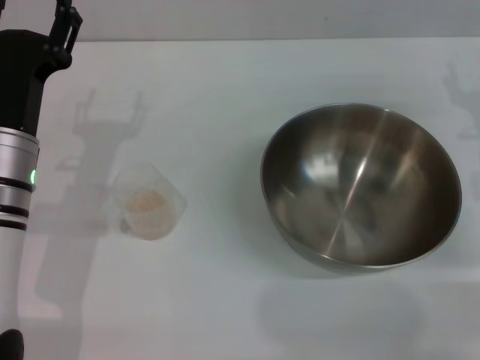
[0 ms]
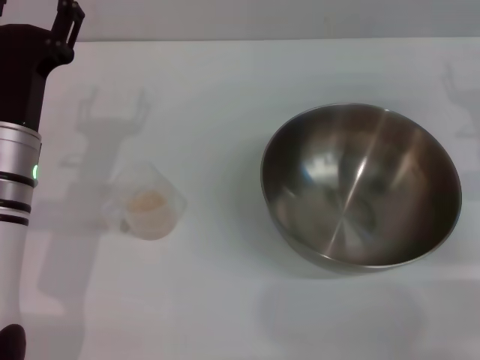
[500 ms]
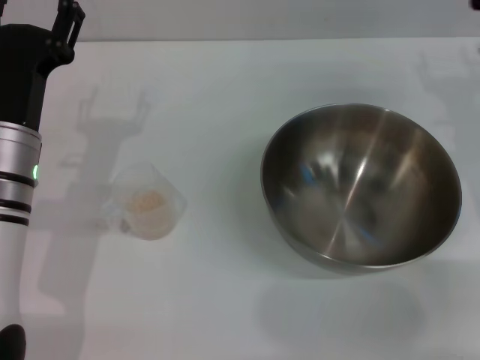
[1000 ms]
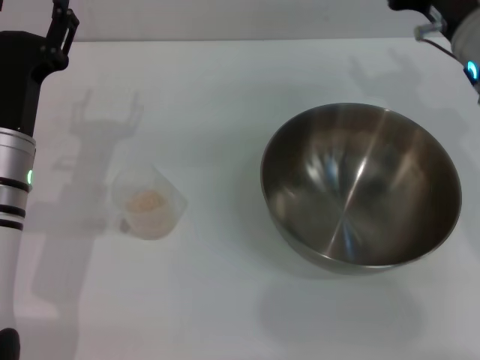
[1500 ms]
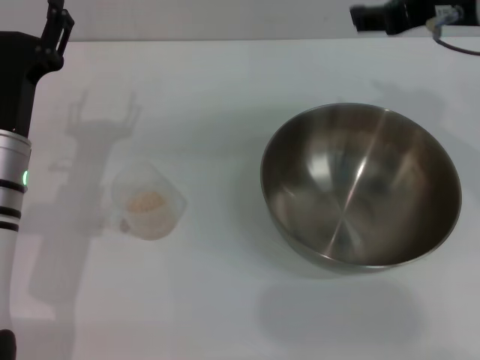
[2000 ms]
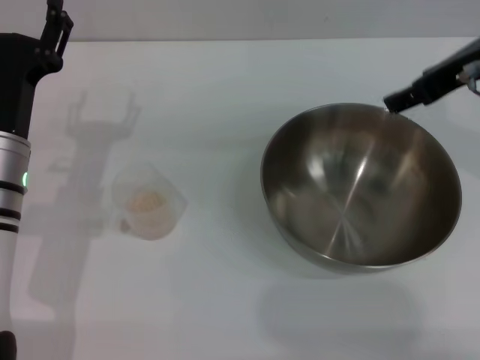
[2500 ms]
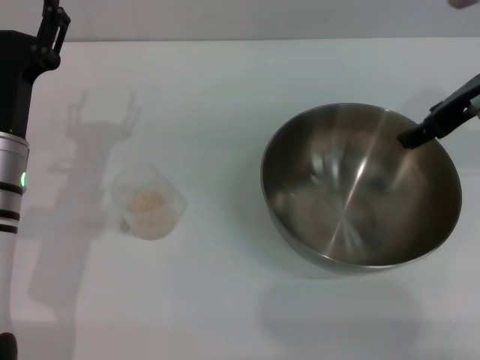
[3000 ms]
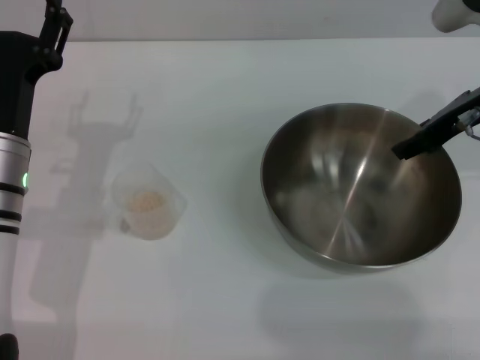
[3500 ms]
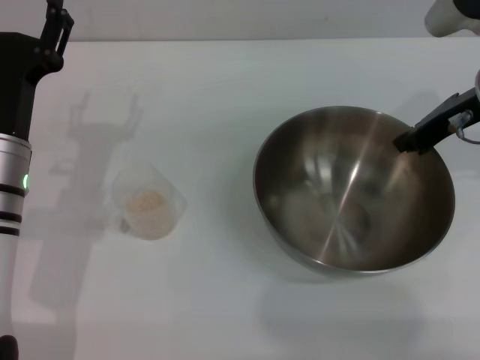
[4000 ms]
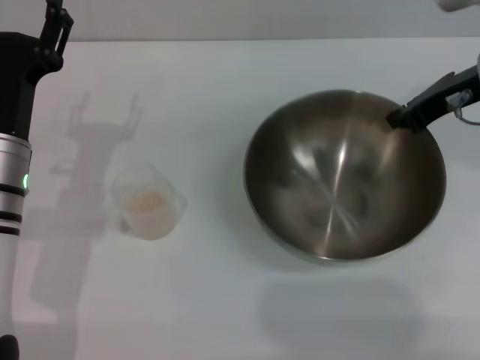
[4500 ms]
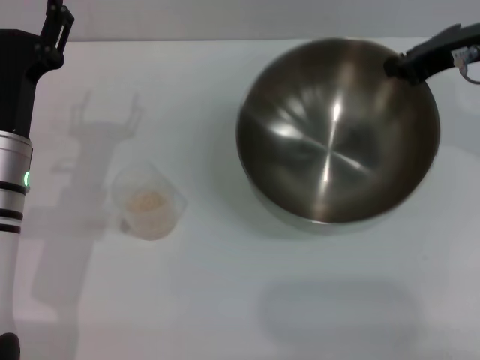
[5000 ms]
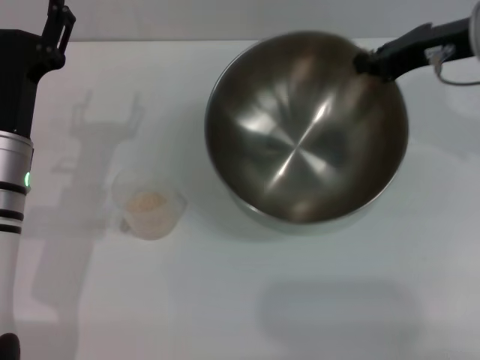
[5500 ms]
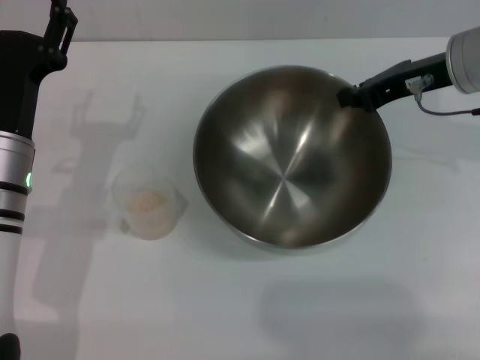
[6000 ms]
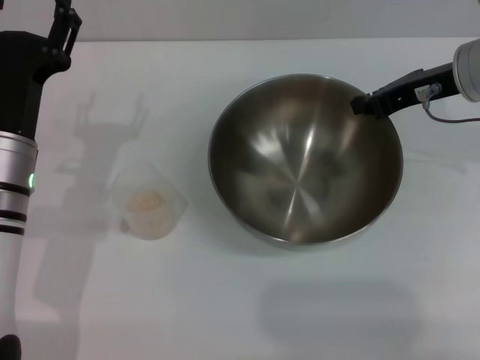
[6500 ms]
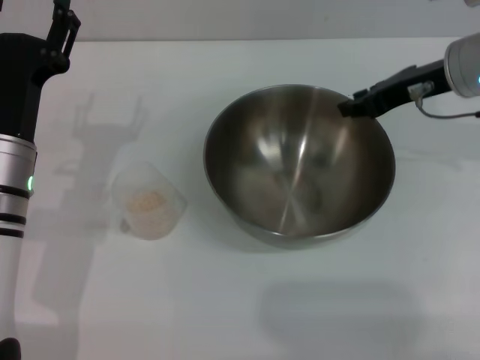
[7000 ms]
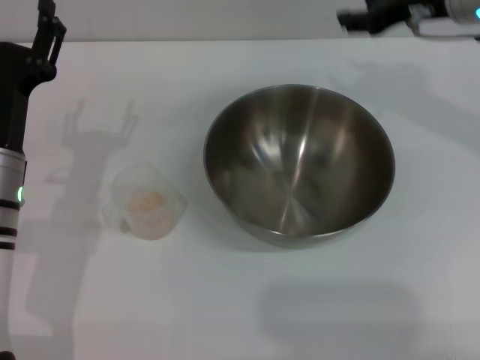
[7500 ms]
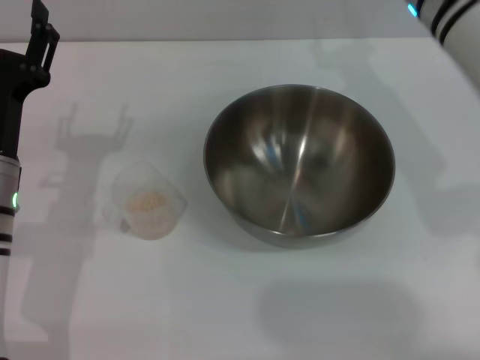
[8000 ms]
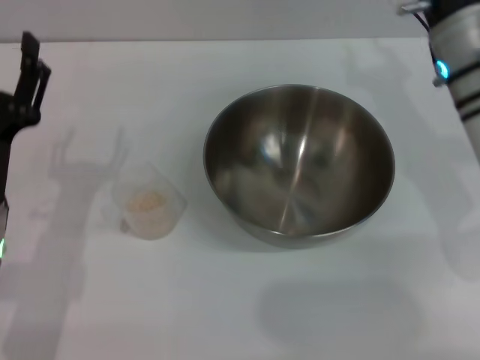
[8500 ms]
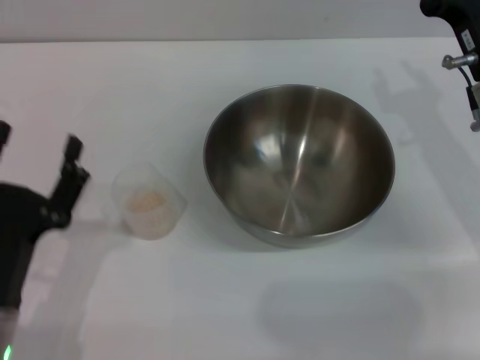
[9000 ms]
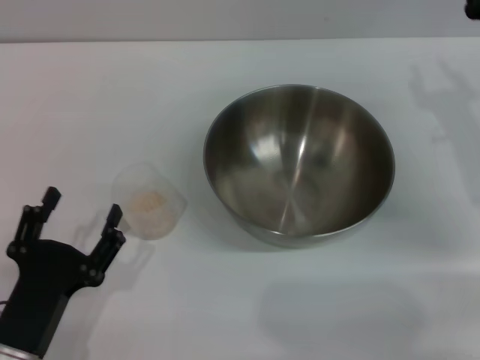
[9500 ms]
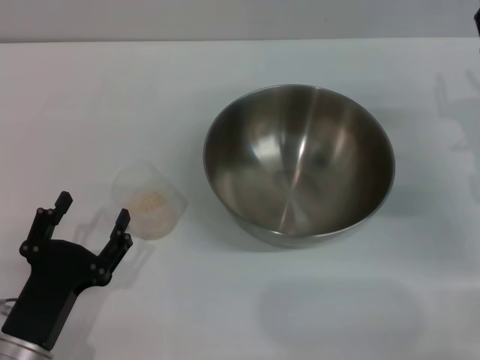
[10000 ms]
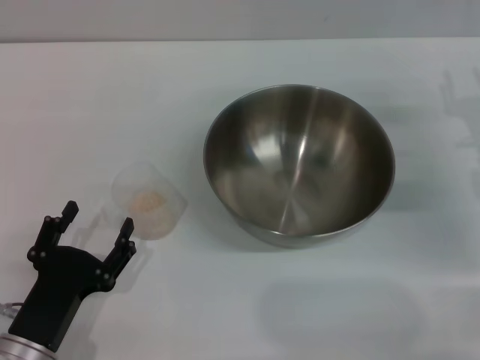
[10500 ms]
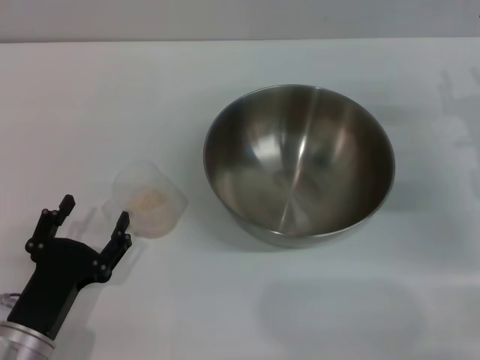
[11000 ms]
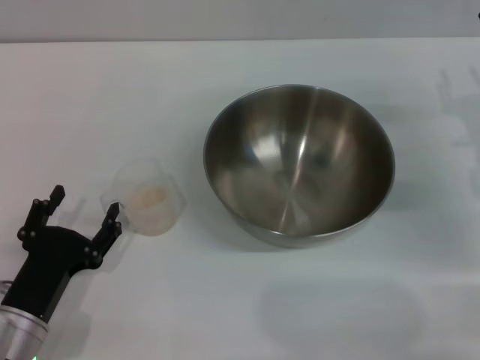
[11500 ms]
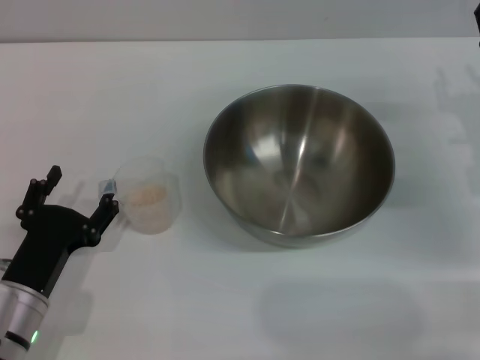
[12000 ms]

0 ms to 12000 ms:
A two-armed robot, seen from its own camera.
Task of the whole recording: Place the bowl in the middle of the table with one hand and pour the rice from the grain cup into it with the other hand.
Step, 0 ms to 5000 ms: Pick up the bowl with the right gripper.
Step, 5500 ms to 7000 ms: Place the bowl in the center of view with the right gripper.
0 ms to 2000 ms: The right gripper shifts some 20 cm upward and to the left.
2000 ms to 4000 ms: The right gripper is displaced downward by about 10 cm, and closes up.
4000 ms to 6000 ms: The right gripper closes its fingers.
6000 ms to 8000 ms: The right gripper moves to the left, some 5 cm, and opens its fingers.
8000 ms to 10000 ms: The left gripper shifts some 15 cm backward and downward. Meanwhile the right gripper moves to the right, downward and backward, roughly 20 cm.
10000 ms to 12000 ms: The left gripper moves forward, roughly 5 cm.

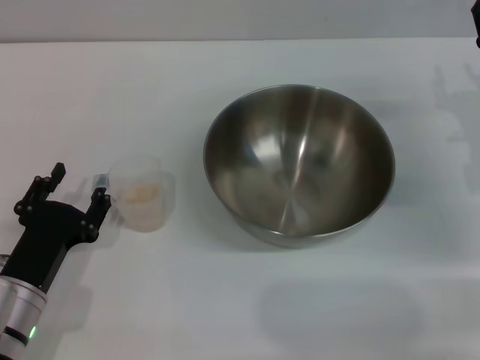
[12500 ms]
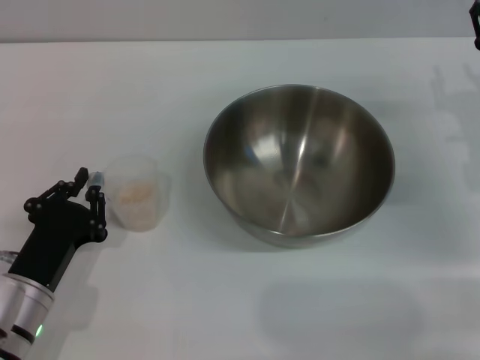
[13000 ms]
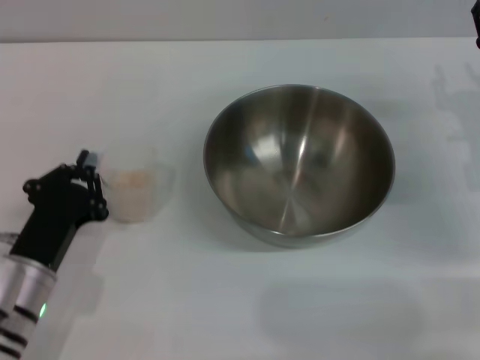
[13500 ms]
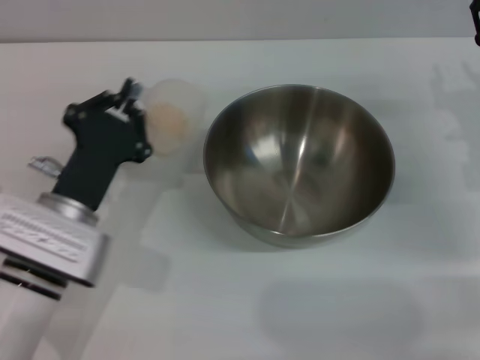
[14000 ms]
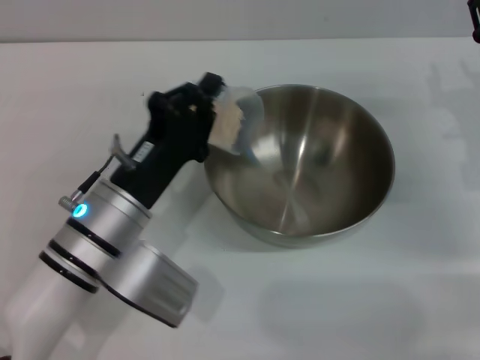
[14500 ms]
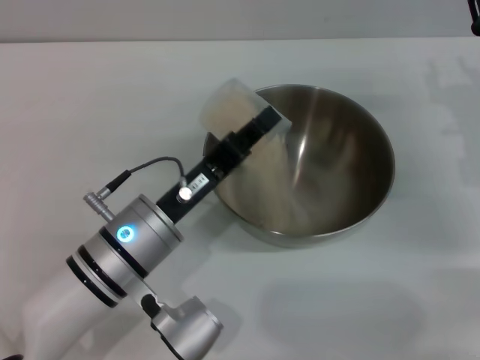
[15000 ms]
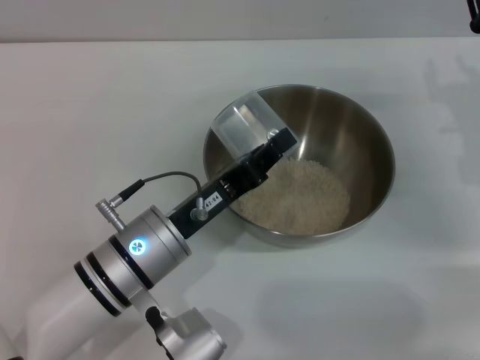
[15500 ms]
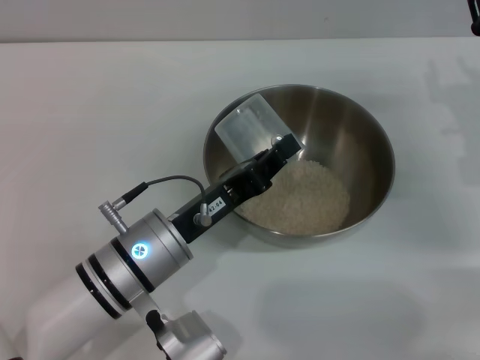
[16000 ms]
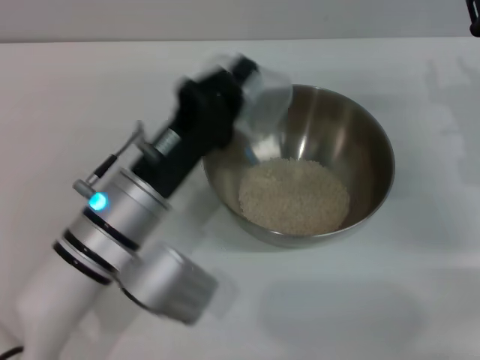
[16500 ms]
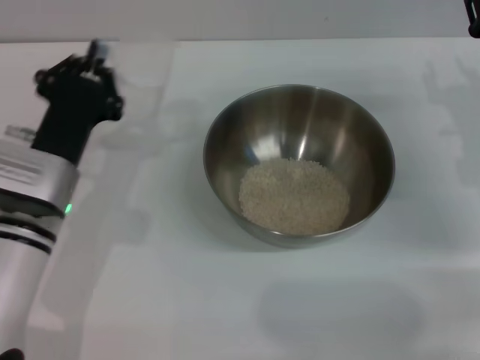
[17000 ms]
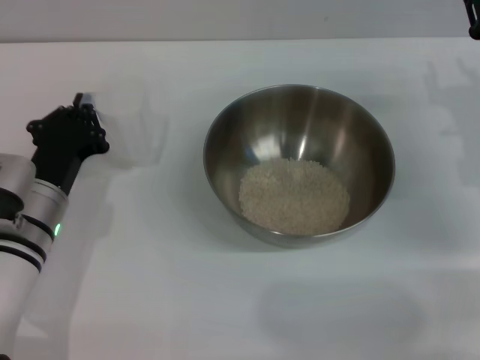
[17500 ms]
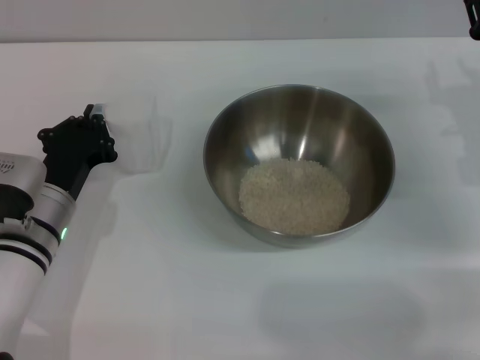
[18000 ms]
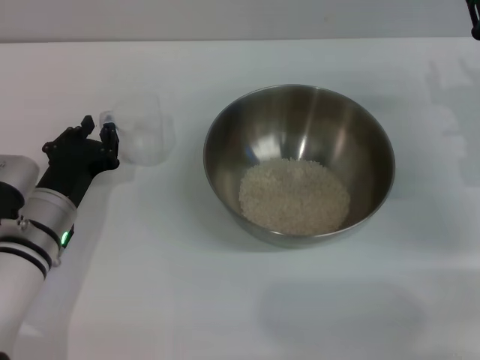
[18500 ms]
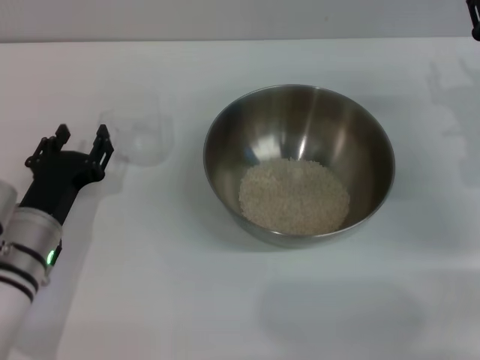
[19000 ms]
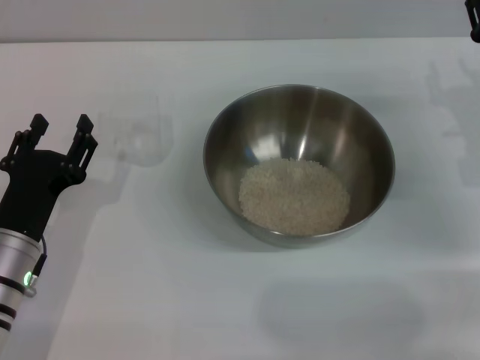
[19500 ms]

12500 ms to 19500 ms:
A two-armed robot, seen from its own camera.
Task of the whole recording: Place the bowl in the middle of the table with one hand and pour the rice from the grain cup into it with the other hand.
Step, 14000 ms to 15500 ms: Pour the rice from the cup into the bowl with the left gripper.
Step, 16000 ms to 19000 ms: Place the cup on the table with the left gripper.
12500 ms to 14500 ms: The left gripper is displaced to the right, upward and forward by about 15 cm, and closes its fingers.
16000 ms to 17500 ms: The left gripper moves to the left, approximately 10 cm.
17500 ms to 19500 ms: The left gripper shifts approximately 5 cm backward, and opens.

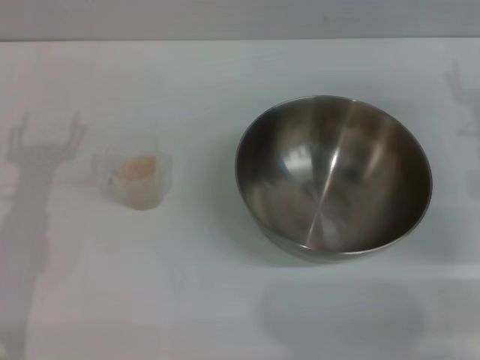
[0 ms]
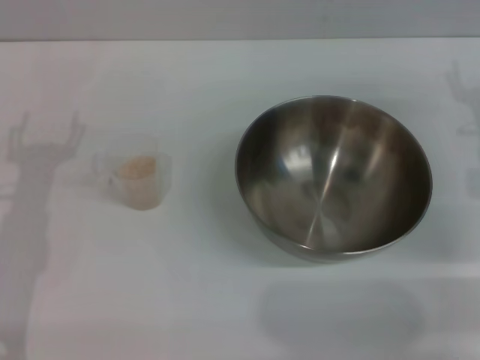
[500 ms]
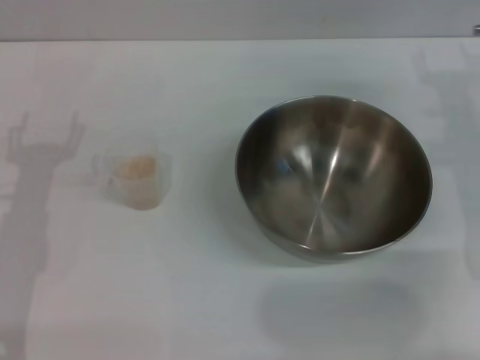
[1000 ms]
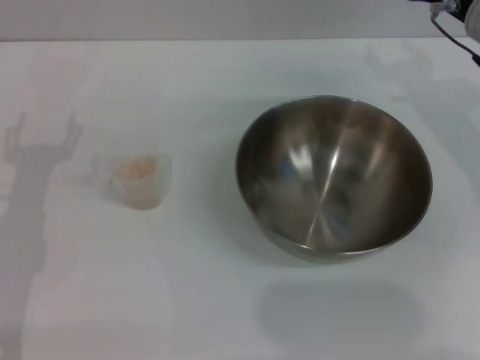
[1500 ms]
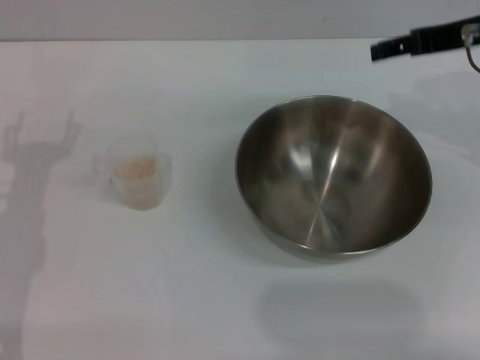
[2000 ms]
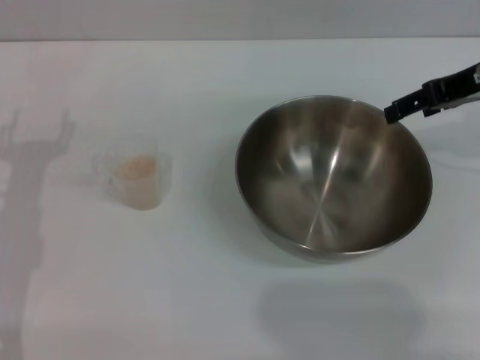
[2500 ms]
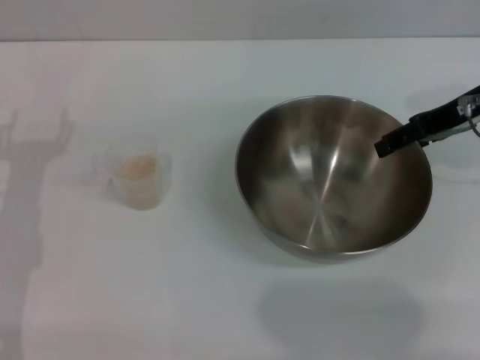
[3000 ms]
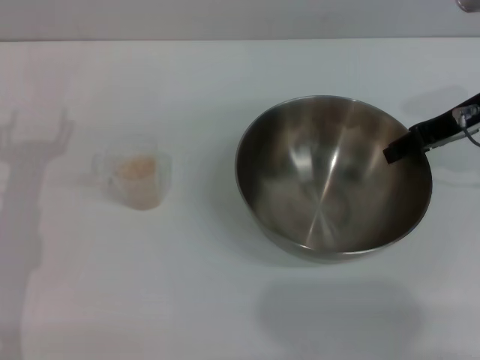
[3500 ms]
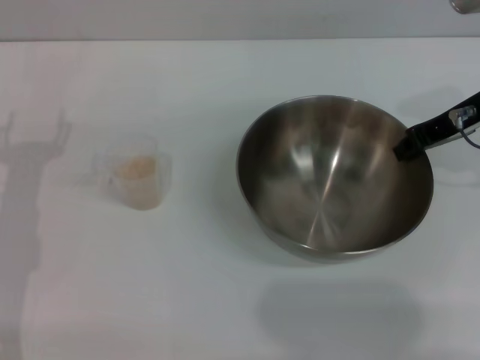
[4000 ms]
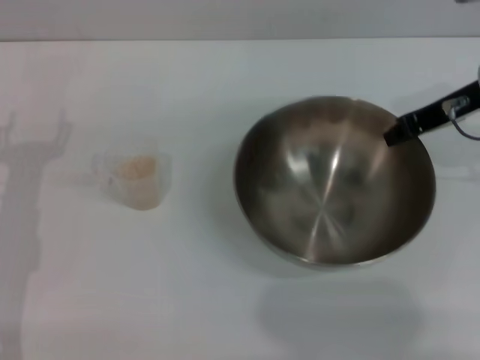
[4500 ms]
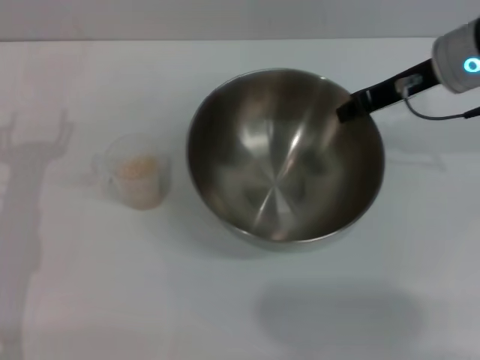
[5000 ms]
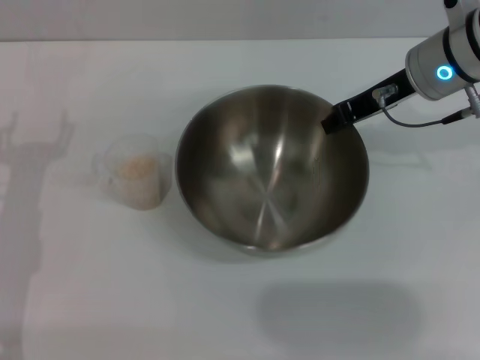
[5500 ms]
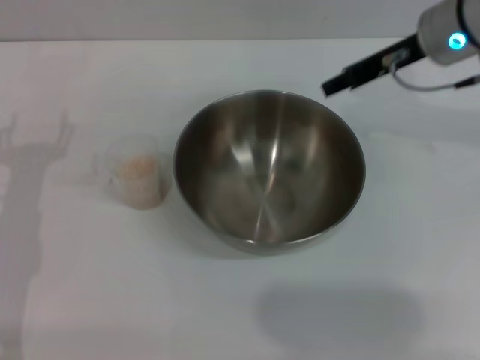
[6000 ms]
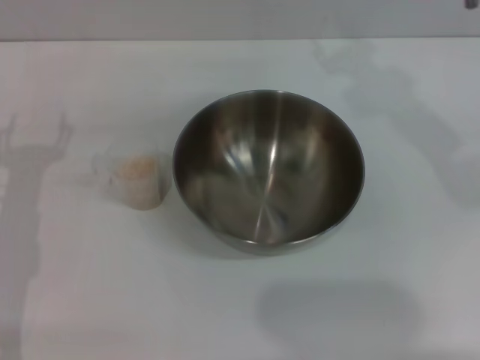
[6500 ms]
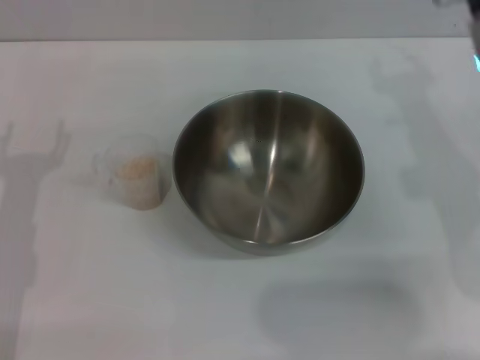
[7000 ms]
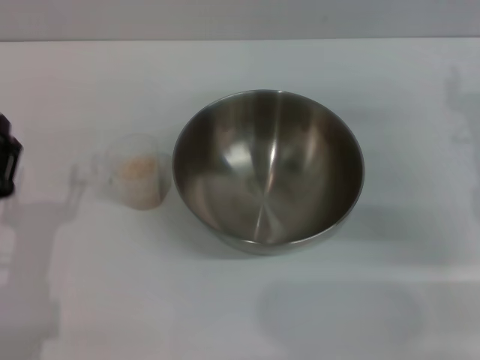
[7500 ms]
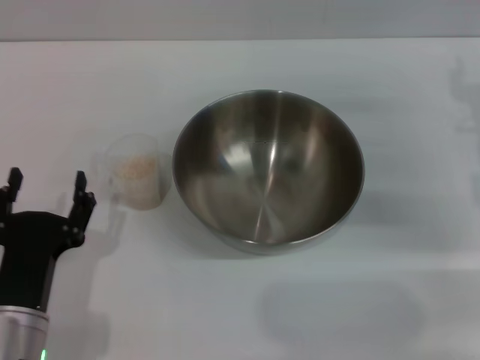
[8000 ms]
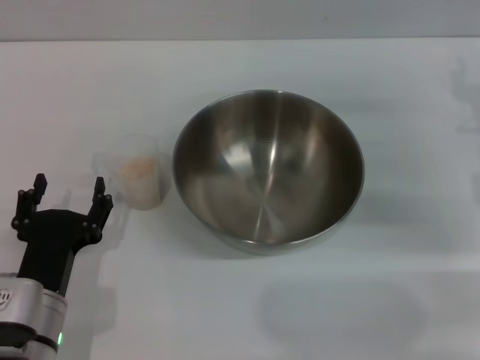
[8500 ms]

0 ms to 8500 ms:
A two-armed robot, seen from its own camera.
Task of the whole recording: Place the bowl in the middle of the table with one hand and pour the rice from the grain cup into it with the other hand.
Step, 0 ms to 4500 ms: Pick up the bowl with the right gripper.
Step, 5000 ms to 5500 ms: Place the bowl in the center of view with the right gripper.
0 ms to 2000 ms: The right gripper shifts about 15 cm upward.
2000 ms to 4000 ms: The right gripper goes roughly 5 cm downward, and closes its fingers.
4000 ms to 6500 ms: The right gripper moves to the left and upward, about 10 cm.
6500 ms to 8500 ms: The right gripper heads downward, to the right and backward, covering about 20 cm; the left gripper heads to the right, backward and downward, covering some 15 cm.
